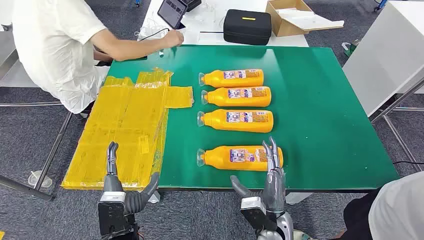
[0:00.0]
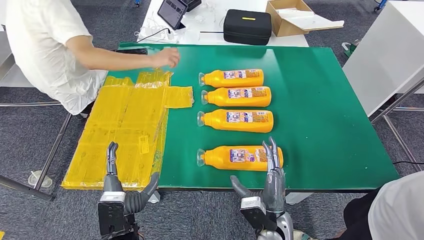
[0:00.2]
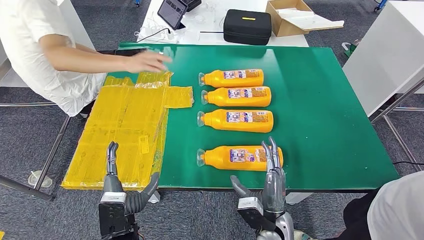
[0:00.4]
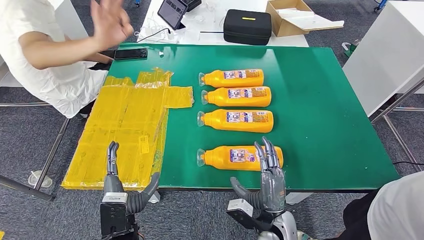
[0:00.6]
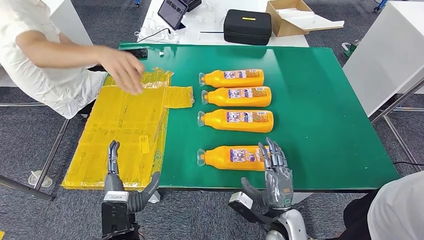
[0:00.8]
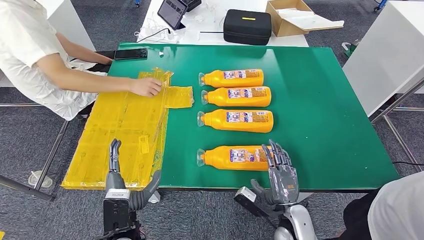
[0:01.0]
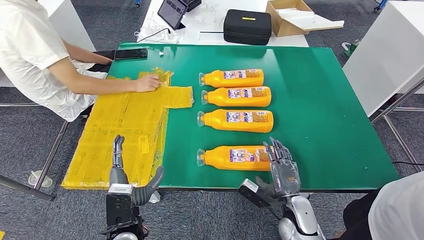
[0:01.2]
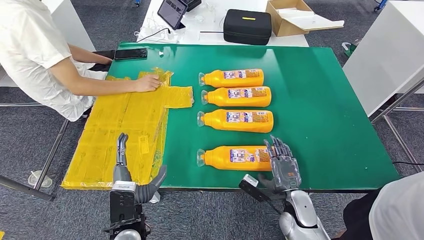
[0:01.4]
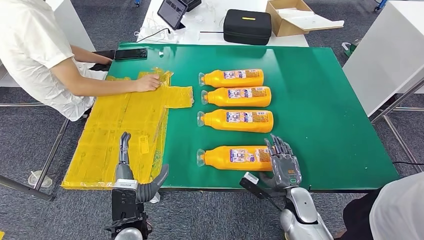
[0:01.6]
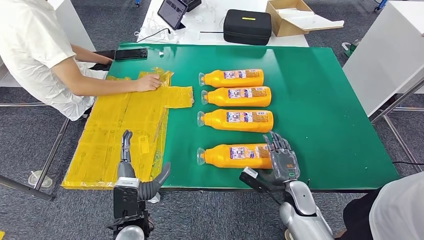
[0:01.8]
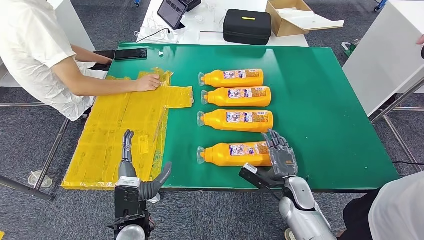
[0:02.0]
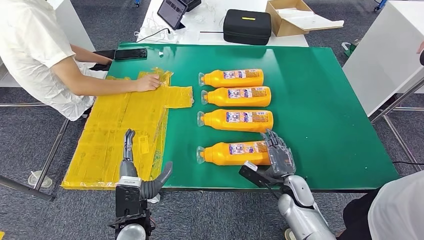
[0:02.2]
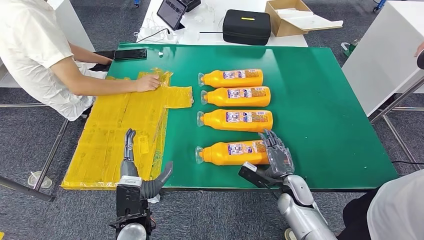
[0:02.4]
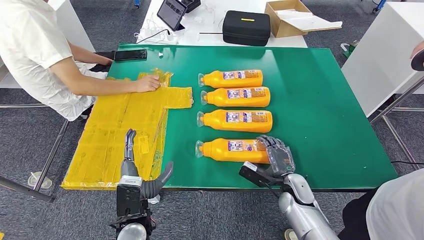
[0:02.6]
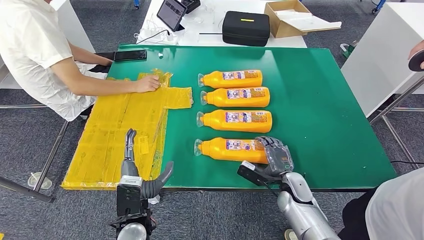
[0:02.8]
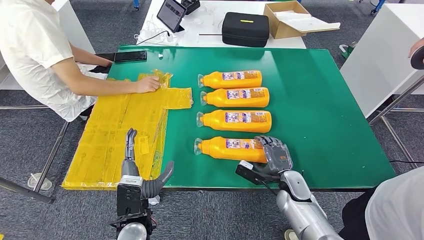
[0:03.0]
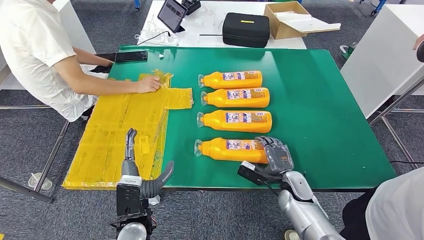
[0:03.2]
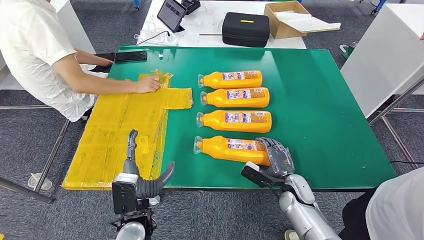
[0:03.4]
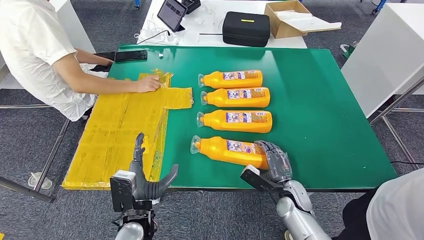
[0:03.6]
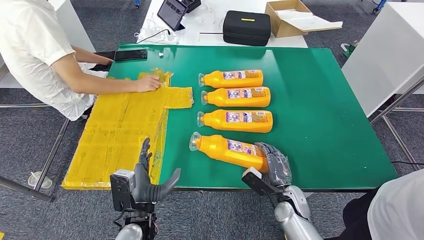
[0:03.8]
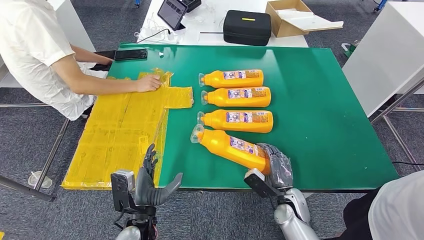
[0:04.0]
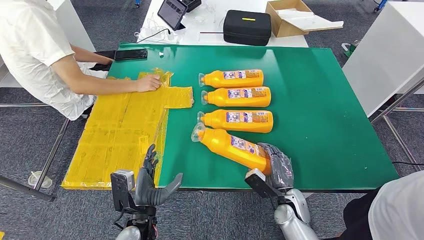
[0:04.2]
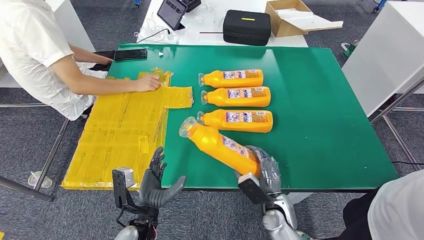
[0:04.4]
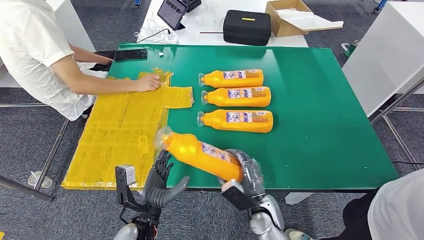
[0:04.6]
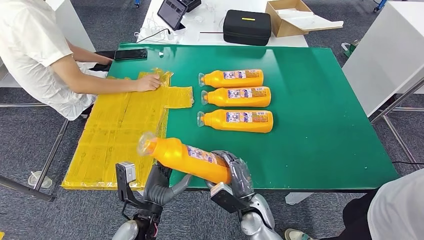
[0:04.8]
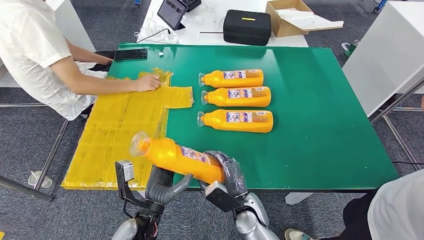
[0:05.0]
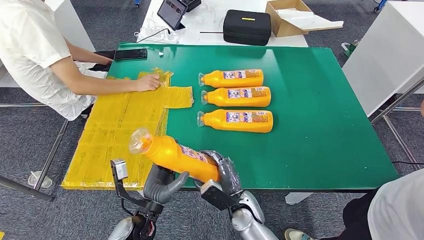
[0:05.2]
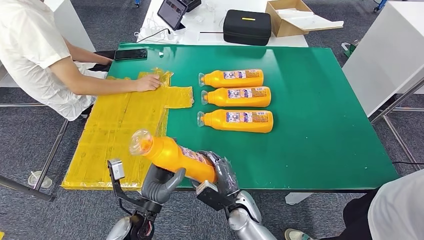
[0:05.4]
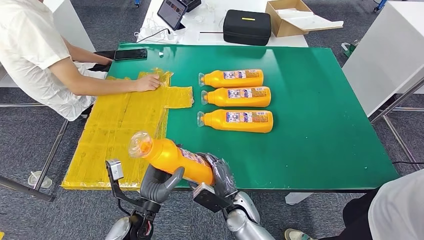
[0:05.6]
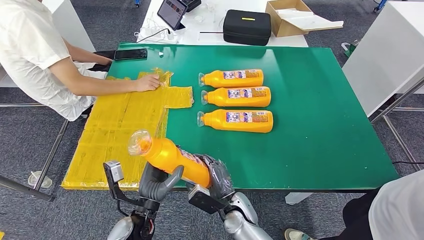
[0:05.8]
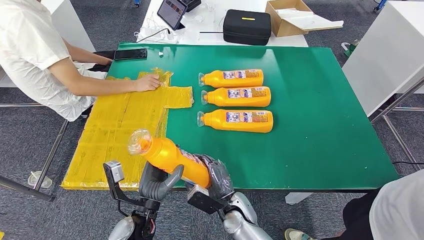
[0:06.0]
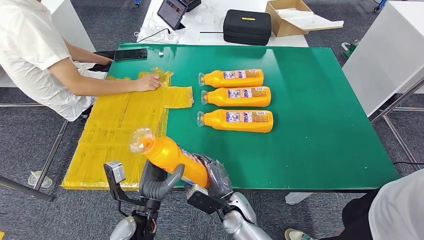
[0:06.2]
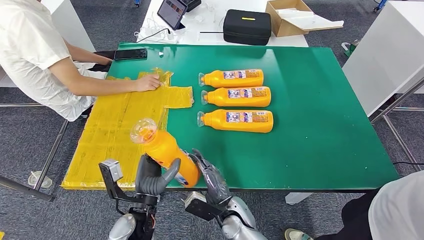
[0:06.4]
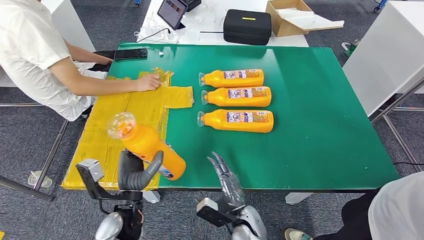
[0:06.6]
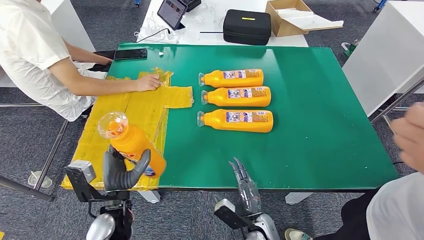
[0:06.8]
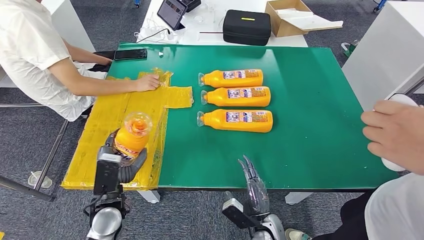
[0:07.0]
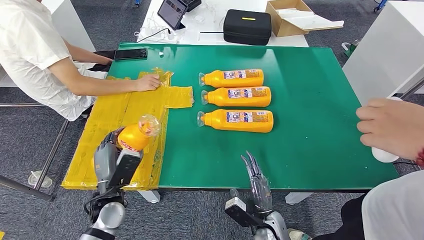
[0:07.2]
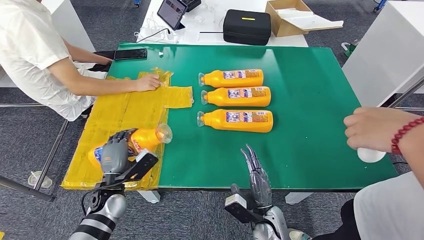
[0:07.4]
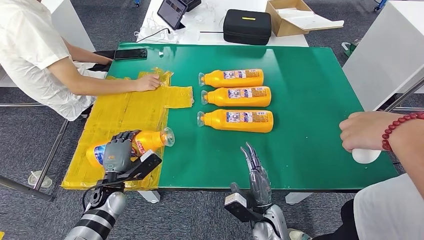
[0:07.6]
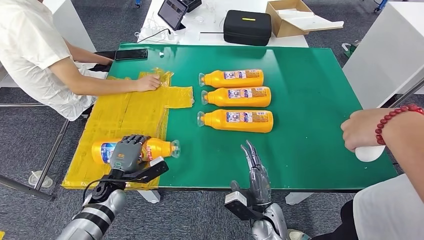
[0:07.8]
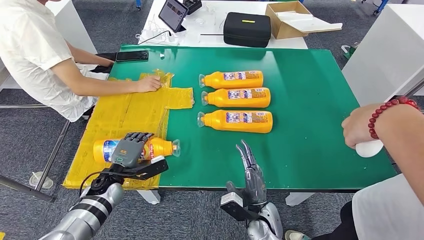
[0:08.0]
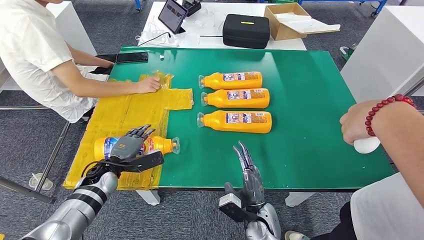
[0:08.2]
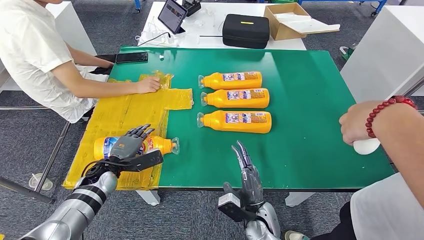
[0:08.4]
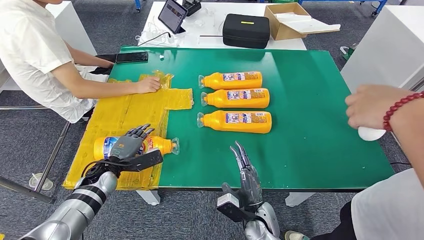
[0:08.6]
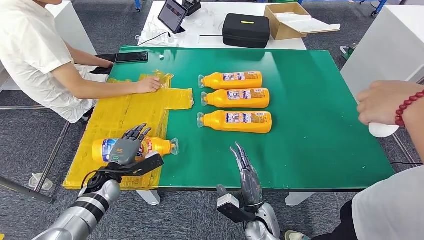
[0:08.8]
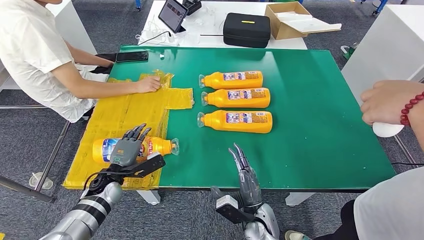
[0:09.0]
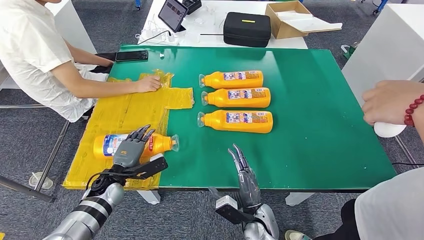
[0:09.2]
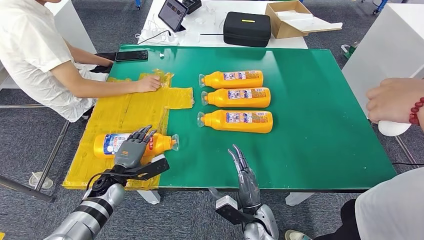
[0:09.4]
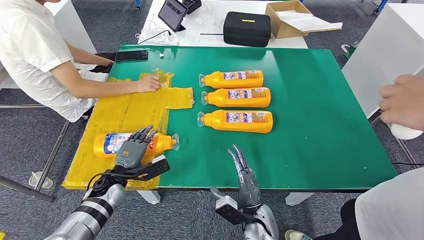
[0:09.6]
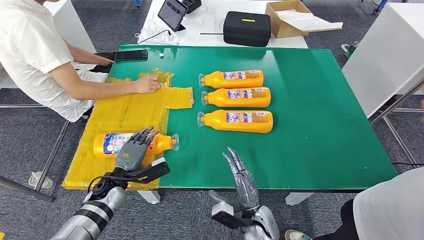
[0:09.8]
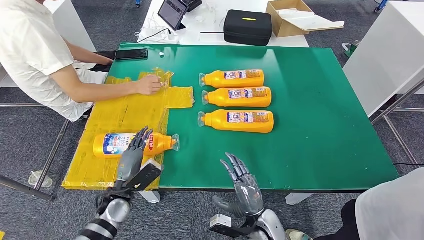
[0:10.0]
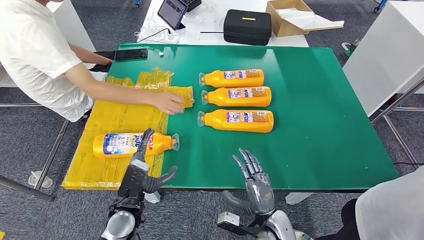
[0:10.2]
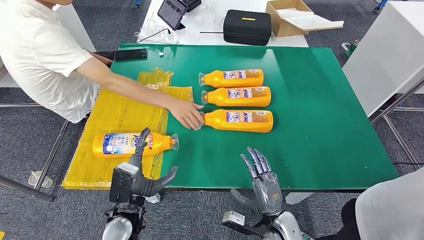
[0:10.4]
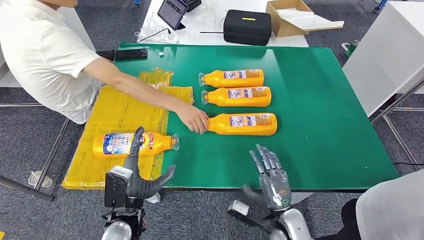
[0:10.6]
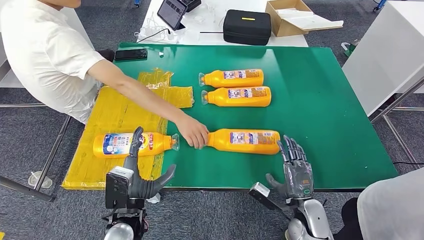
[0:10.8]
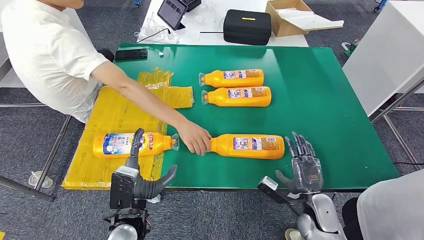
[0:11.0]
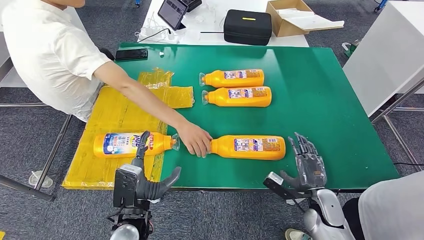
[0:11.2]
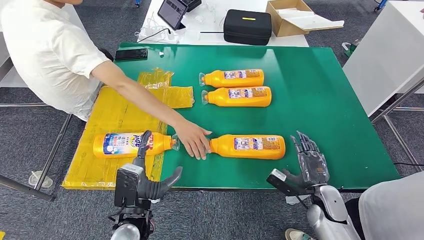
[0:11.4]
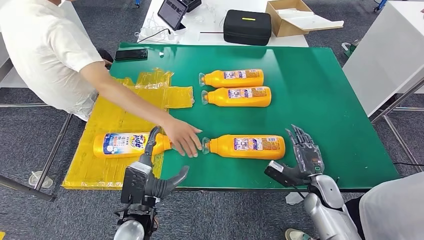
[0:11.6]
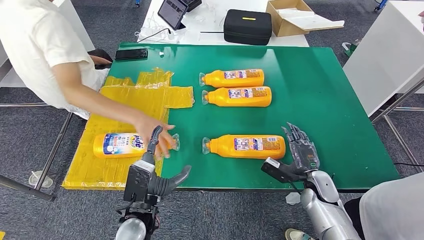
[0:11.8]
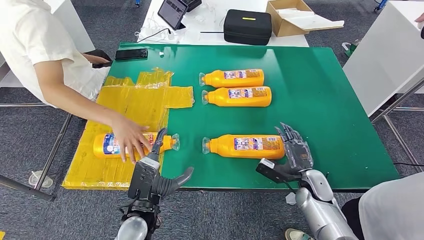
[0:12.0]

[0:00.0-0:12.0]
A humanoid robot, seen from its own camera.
Step, 0:00.0 to 0:05.8: Take the fast-moving consumer goods bottle from the table.
Step, 0:06.0 to 0:09.0: Flip the fast-moving consumer goods bottle to the front side.
0:01.6 to 0:03.0: There are only small adjustments of the hands.
0:03.0 to 0:04.4: The right hand moves some 5 cm.
0:04.4 to 0:06.0: The right hand heads to the left, covering approximately 15 cm.
0:06.0 to 0:07.6: The right hand travels to the right by approximately 10 cm. The left hand shifts roughly 15 cm to the left and forward.
0:10.4 to 0:12.0: The right hand shifts approximately 15 cm to the right and forward.

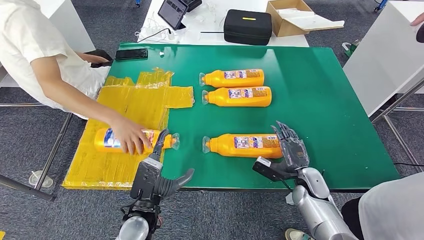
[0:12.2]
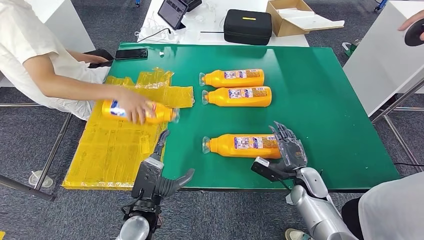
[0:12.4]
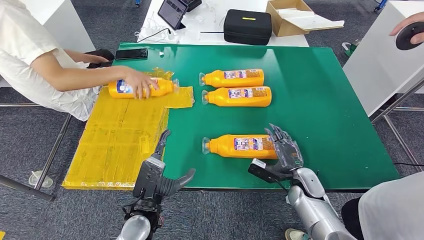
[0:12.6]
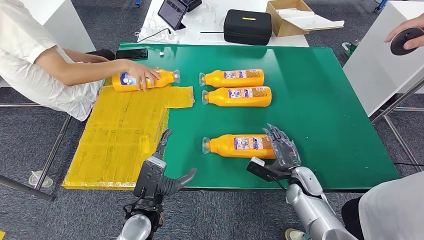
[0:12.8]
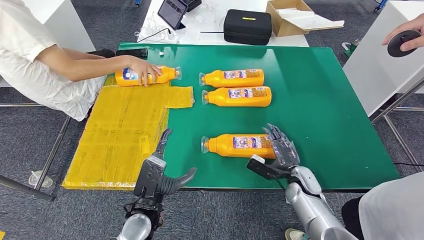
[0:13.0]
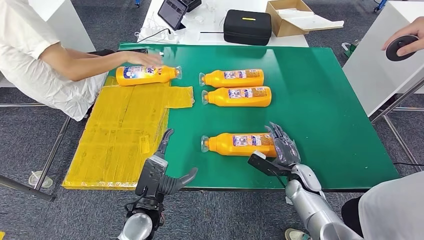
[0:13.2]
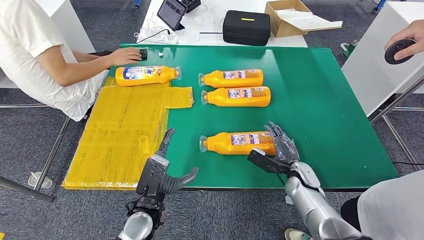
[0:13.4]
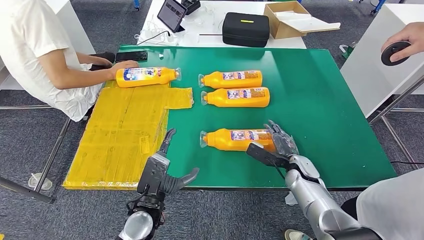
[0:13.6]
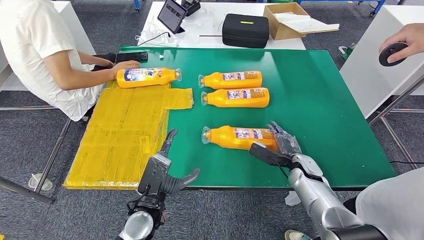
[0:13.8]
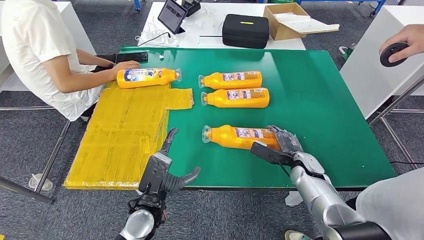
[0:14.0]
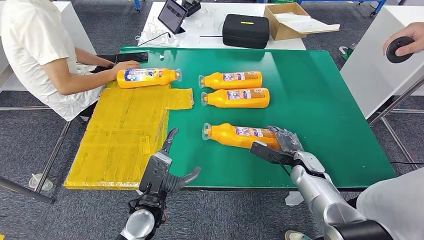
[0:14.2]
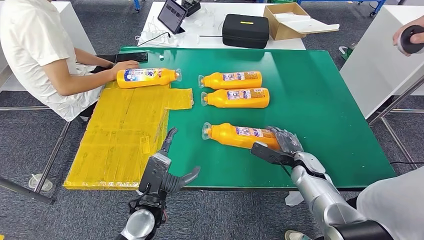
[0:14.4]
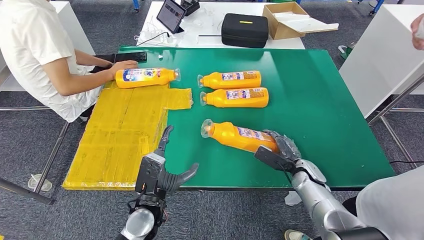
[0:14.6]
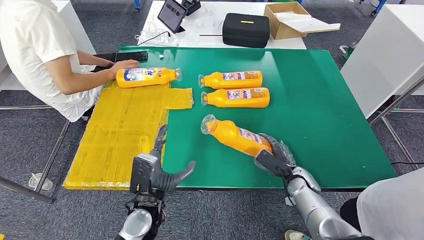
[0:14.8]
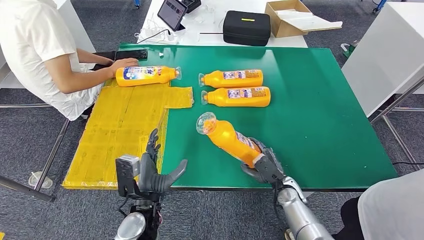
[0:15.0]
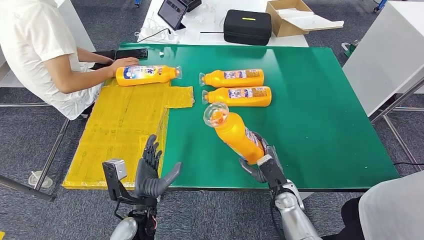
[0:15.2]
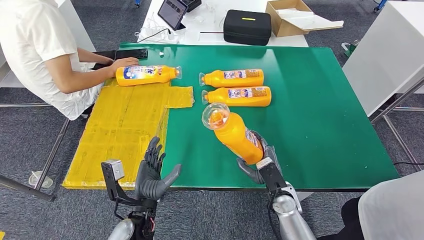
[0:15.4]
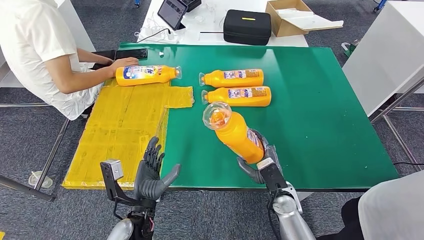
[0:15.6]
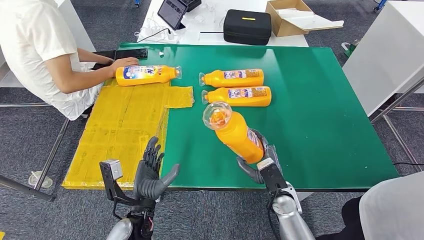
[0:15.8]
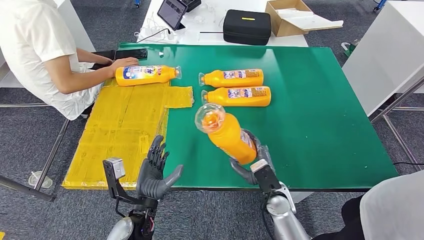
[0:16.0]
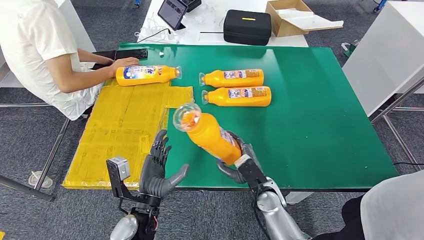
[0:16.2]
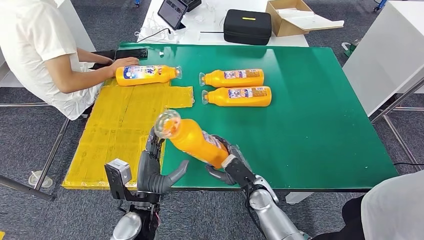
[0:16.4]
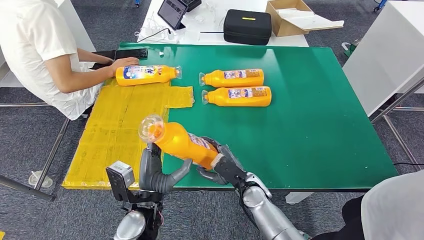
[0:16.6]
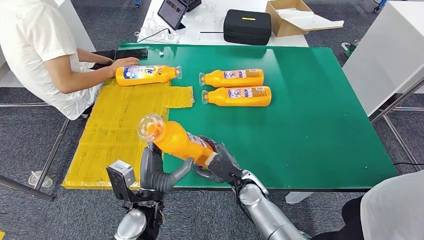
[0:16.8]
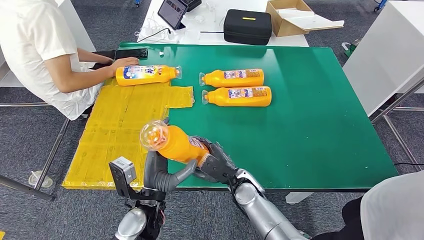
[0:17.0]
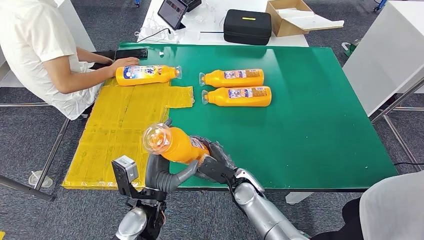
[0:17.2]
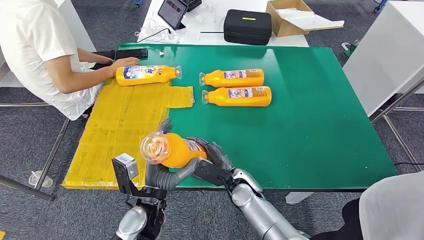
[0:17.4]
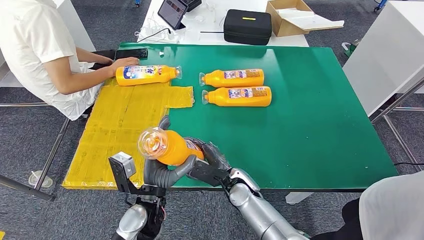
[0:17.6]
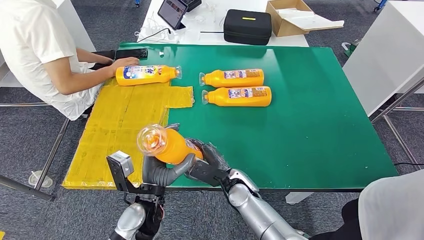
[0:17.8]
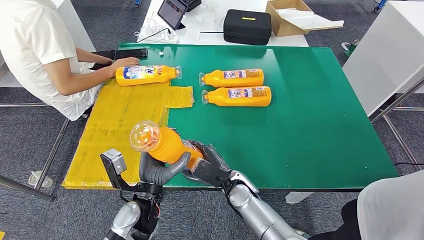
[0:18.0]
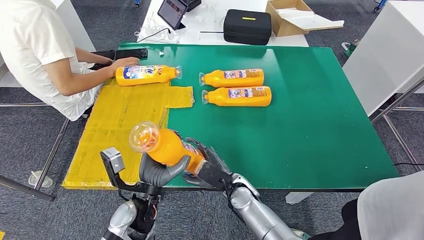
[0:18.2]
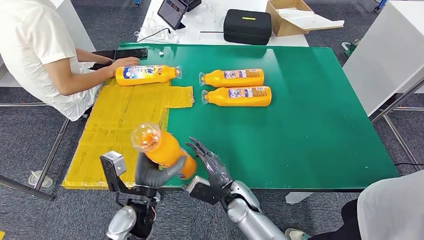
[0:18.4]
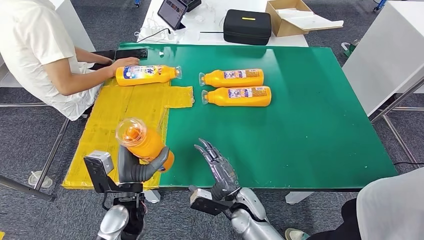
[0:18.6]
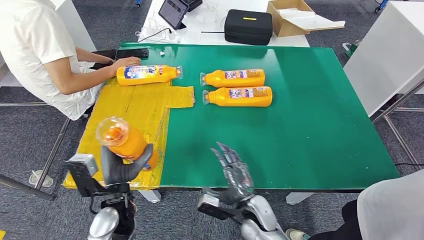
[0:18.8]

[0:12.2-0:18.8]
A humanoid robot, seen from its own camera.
Step, 0:12.2 to 0:16.4: Pick up the fast-moving consumer goods bottle from the table.
0:15.4 to 0:17.2: The right hand is displaced to the left by approximately 10 cm.
0:17.2 to 0:18.8: The left hand shifts some 5 cm to the left, while the right hand goes some 5 cm backward.
